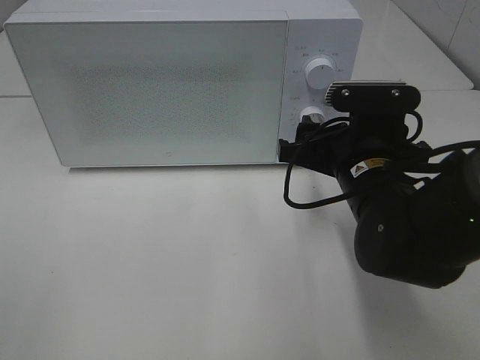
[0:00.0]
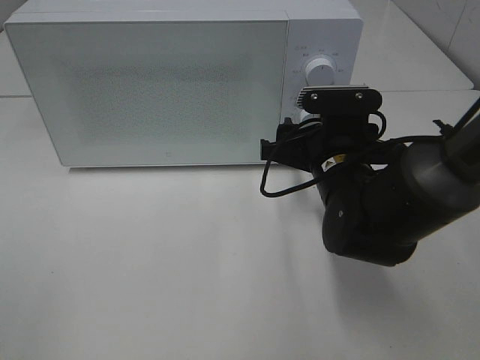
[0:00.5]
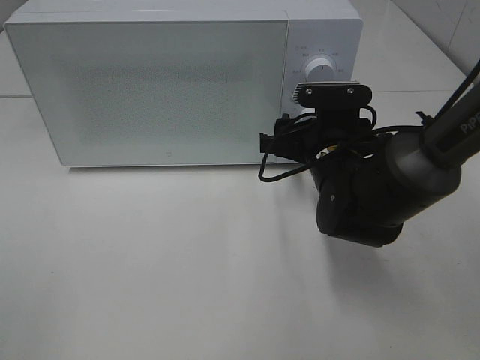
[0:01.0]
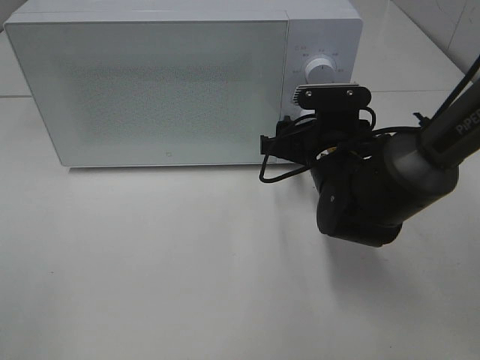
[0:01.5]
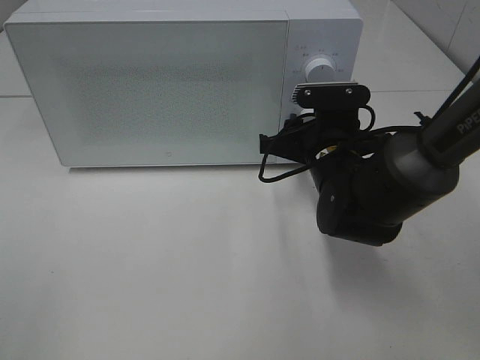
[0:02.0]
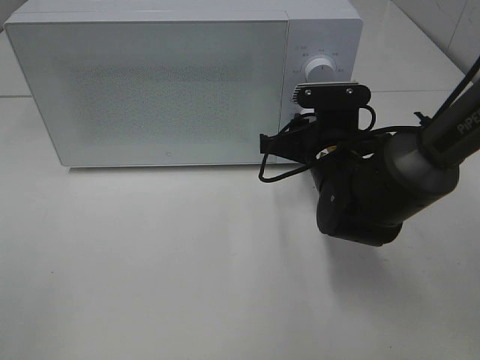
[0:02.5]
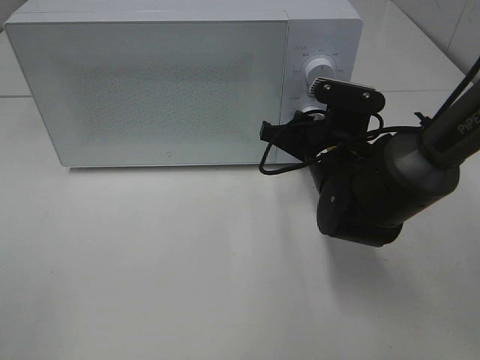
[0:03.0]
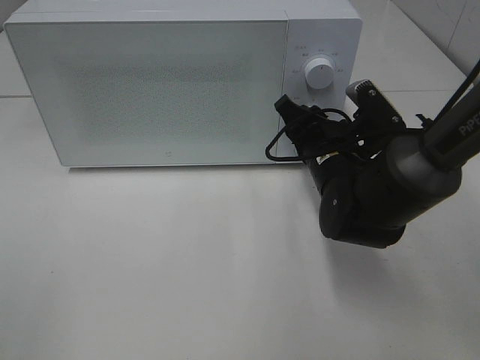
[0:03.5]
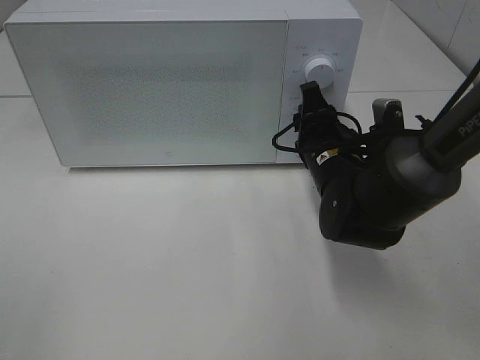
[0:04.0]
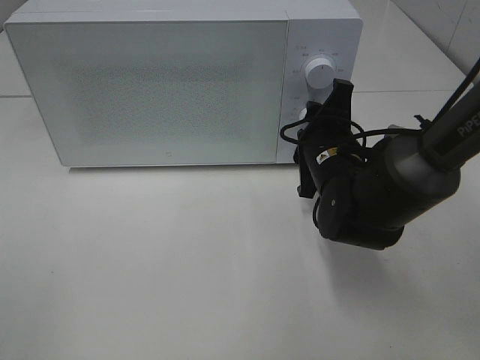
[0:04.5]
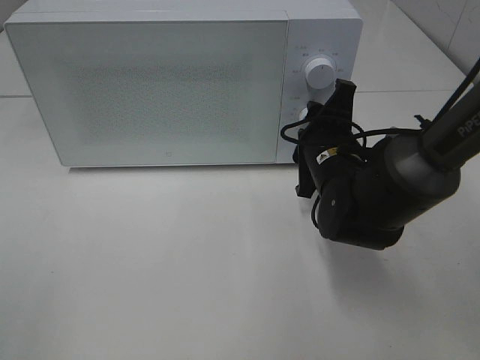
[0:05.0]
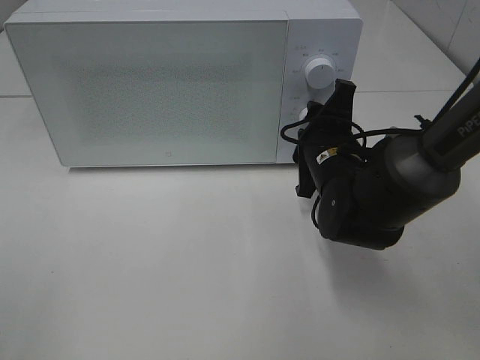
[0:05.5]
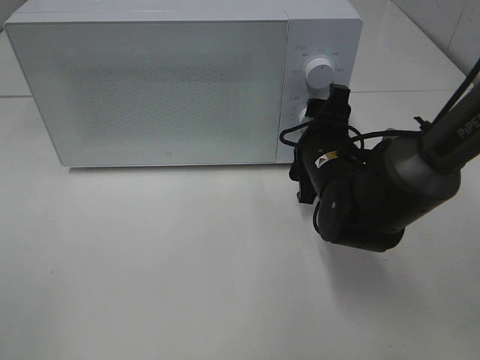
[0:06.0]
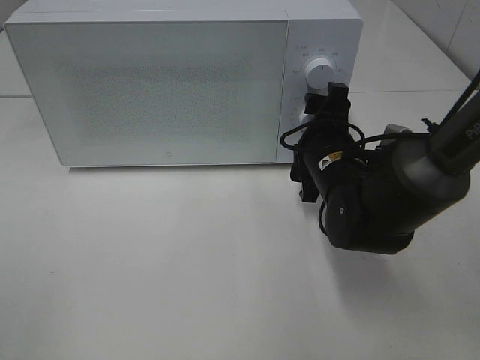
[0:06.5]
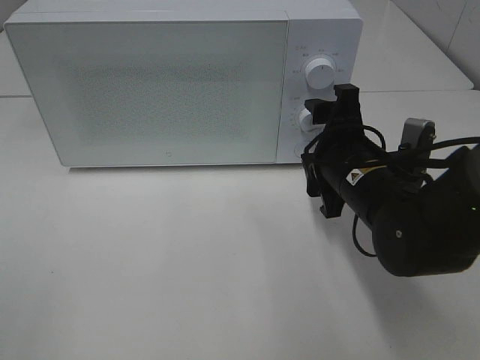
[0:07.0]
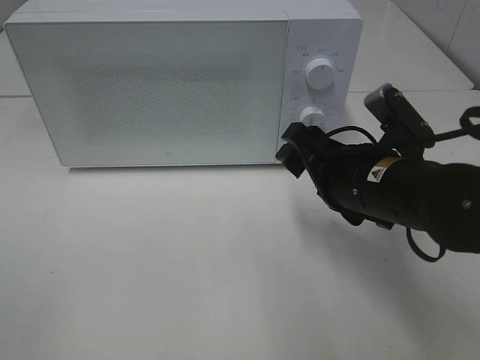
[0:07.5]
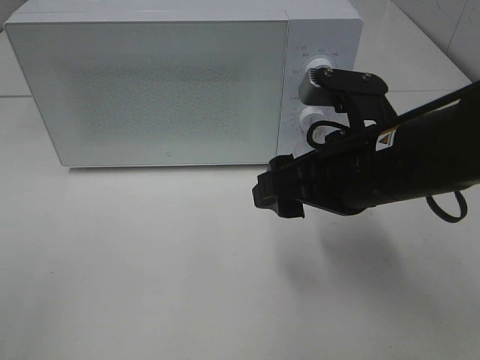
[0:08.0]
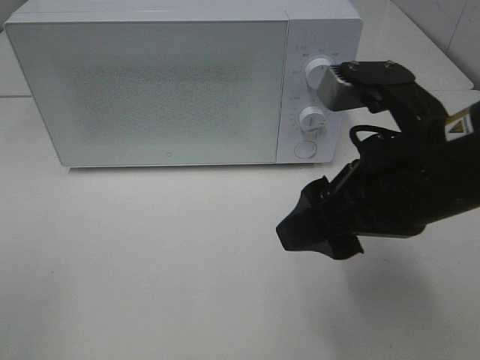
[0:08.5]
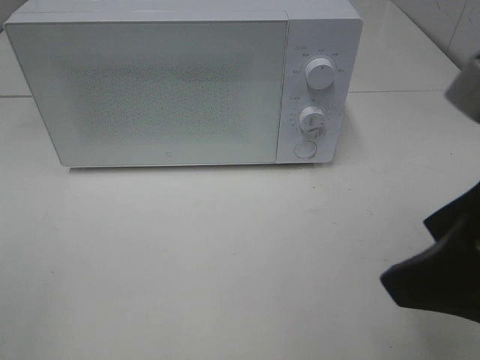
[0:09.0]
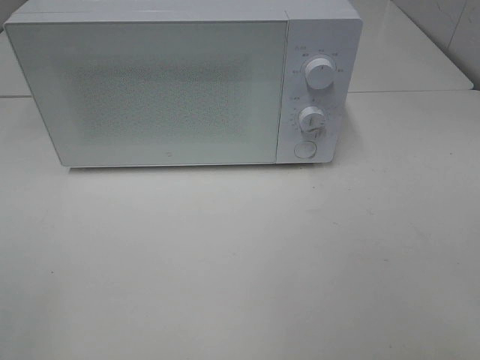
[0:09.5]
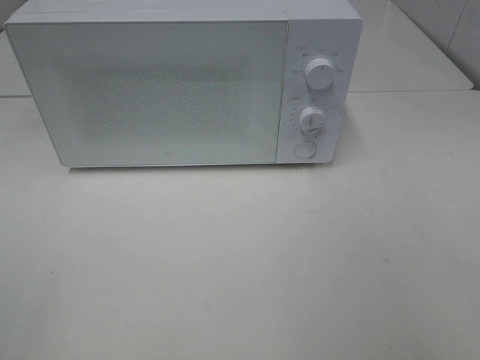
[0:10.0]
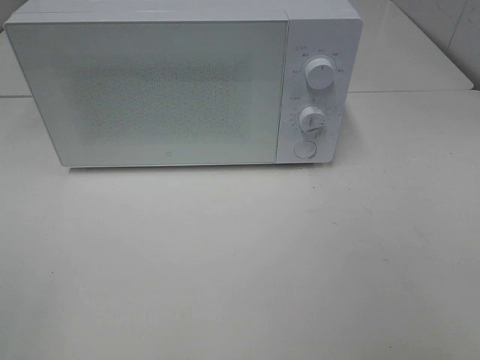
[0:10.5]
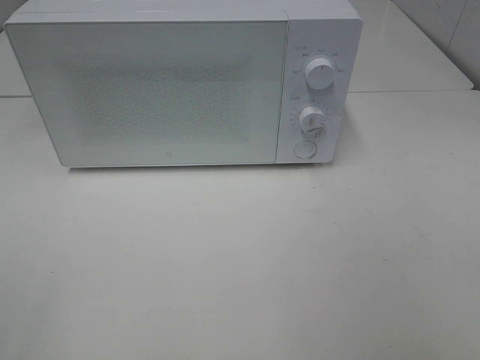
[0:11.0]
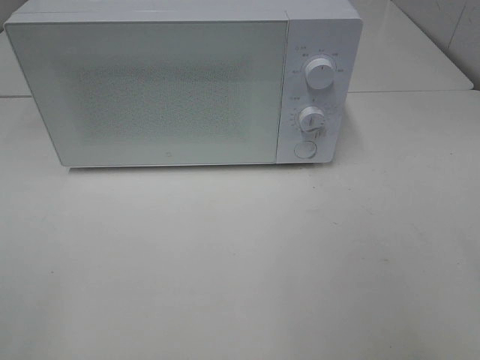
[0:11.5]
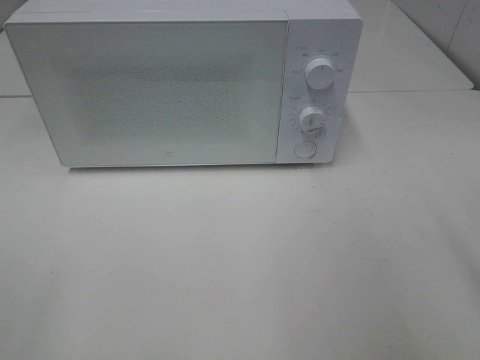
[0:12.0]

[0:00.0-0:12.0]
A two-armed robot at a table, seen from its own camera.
Task of the whole recording: Heat Sandwich.
Step, 0:00.0 to 0:06.0: Right hand: twist timer button.
0:00.0 to 0:02.0: The right gripper shifts about 5 cm forward.
0:04.0 to 0:06.0: The right gripper opens.
0:06.0 to 0:08.0: The right gripper is displaced backward and upward by about 15 cm.
0:08.0 to 0:10.0: The right gripper heads backward and to the right, covering roughly 25 cm.

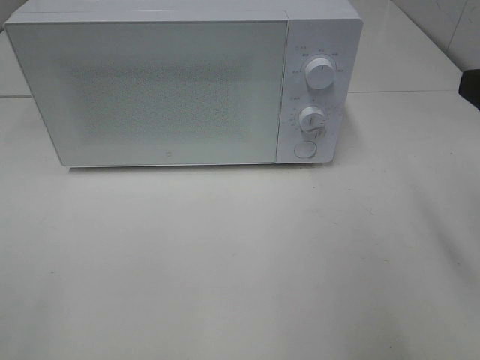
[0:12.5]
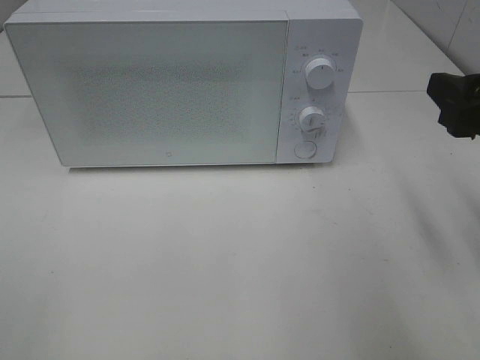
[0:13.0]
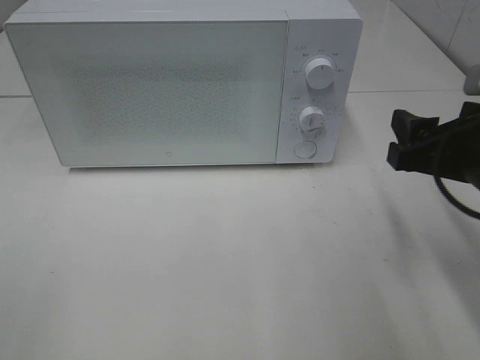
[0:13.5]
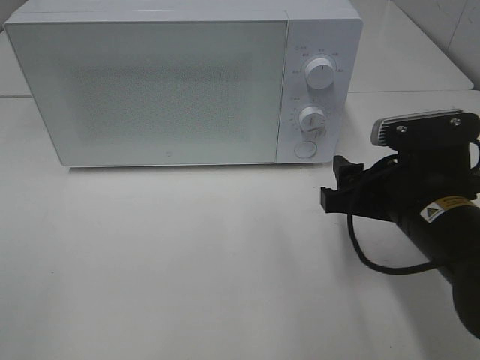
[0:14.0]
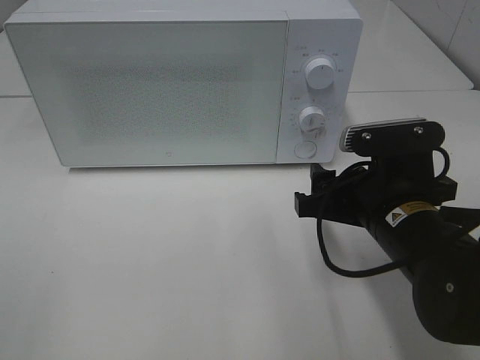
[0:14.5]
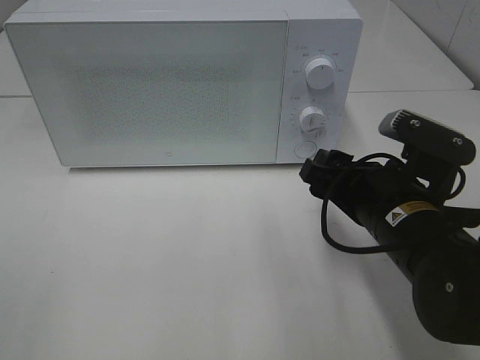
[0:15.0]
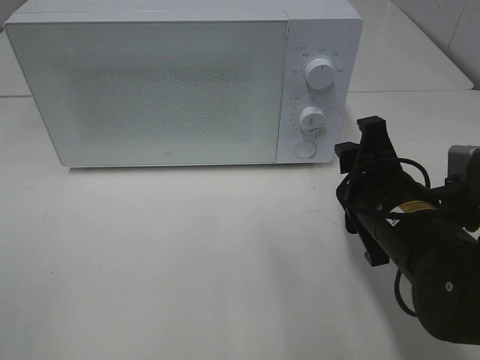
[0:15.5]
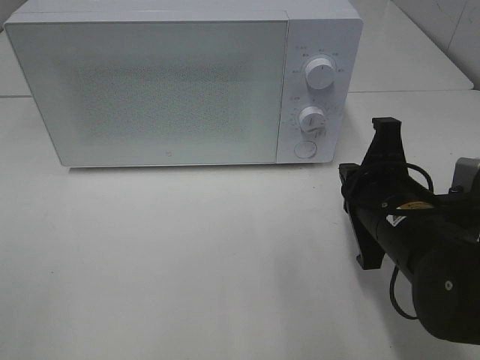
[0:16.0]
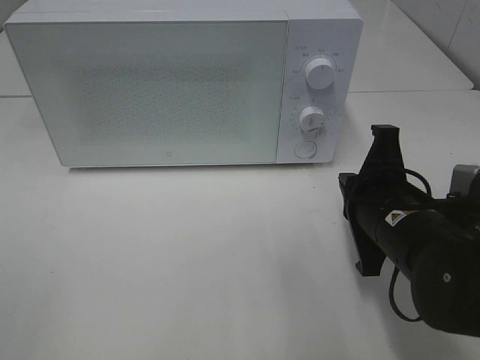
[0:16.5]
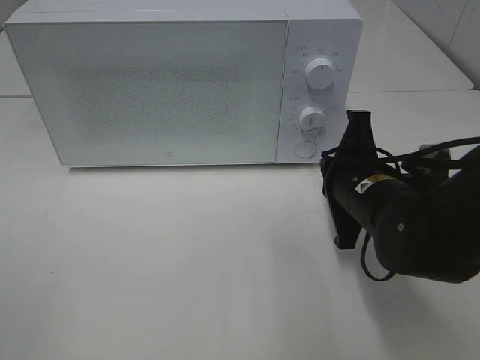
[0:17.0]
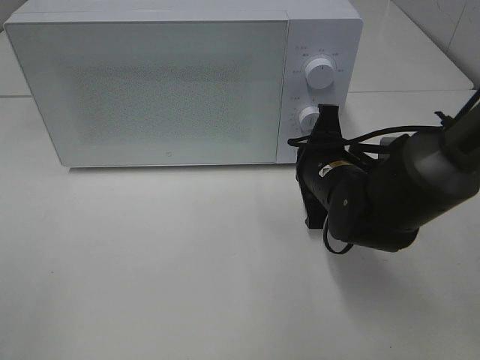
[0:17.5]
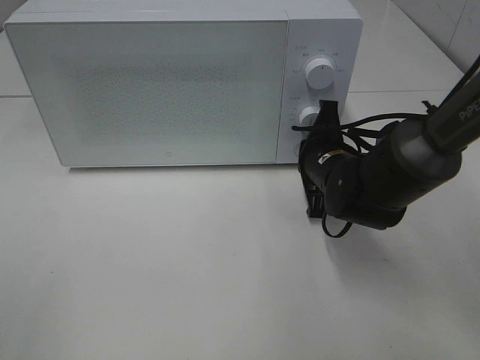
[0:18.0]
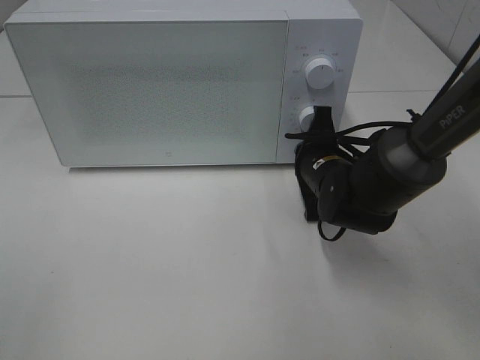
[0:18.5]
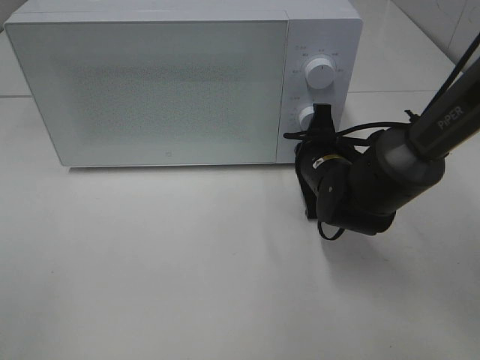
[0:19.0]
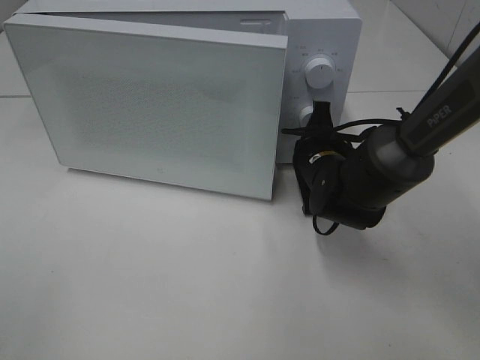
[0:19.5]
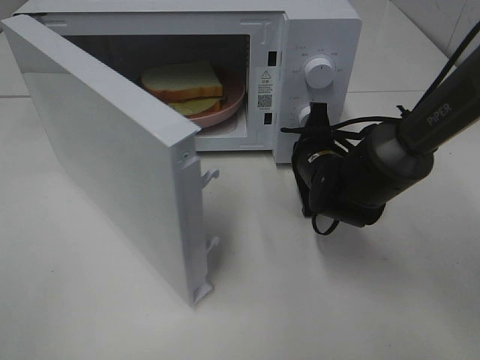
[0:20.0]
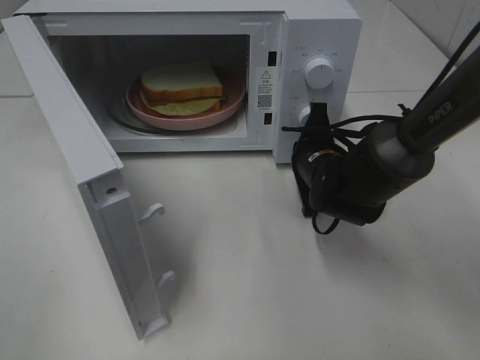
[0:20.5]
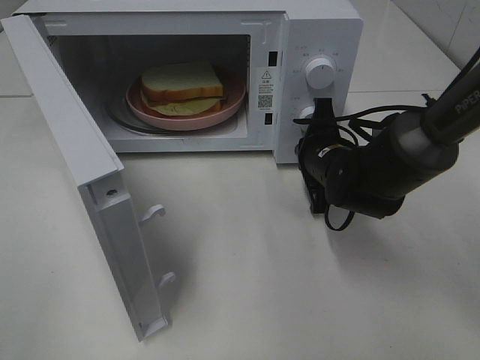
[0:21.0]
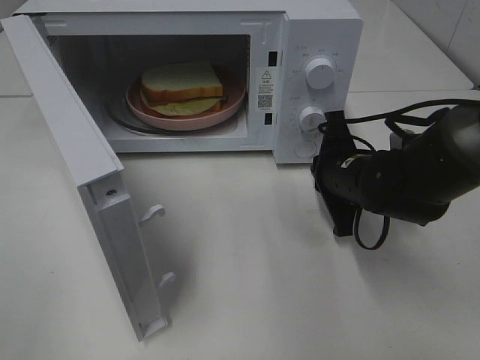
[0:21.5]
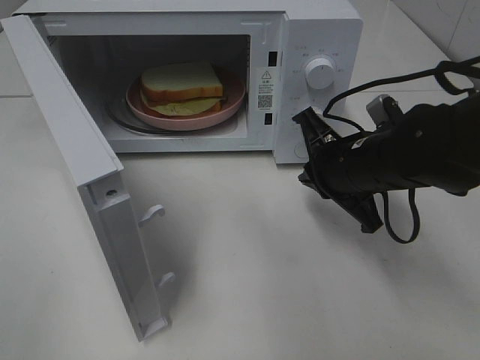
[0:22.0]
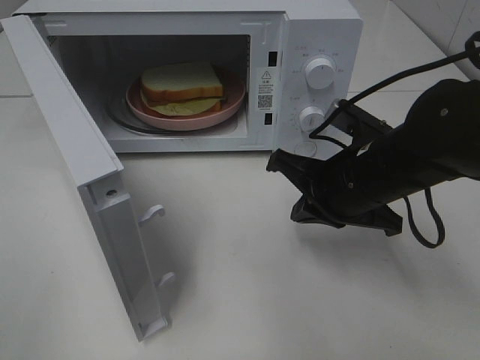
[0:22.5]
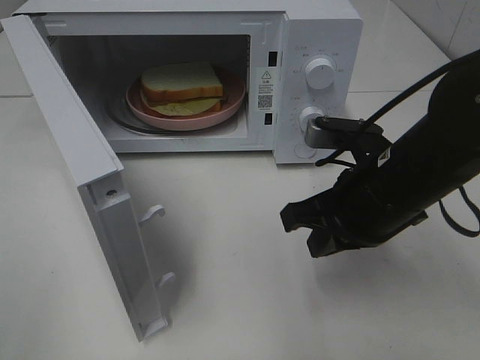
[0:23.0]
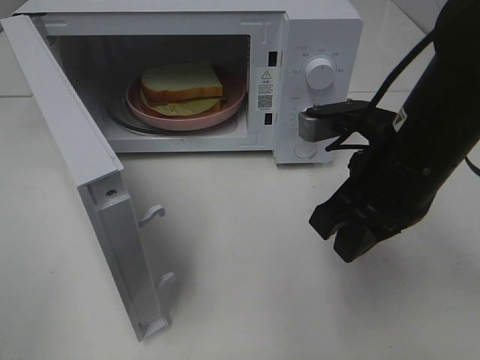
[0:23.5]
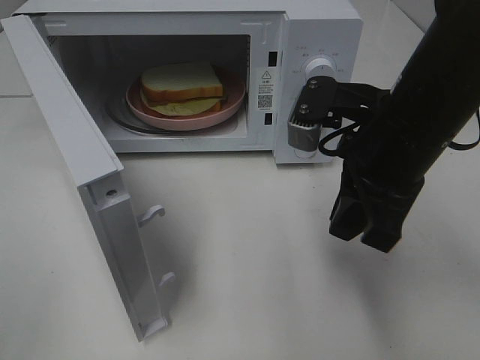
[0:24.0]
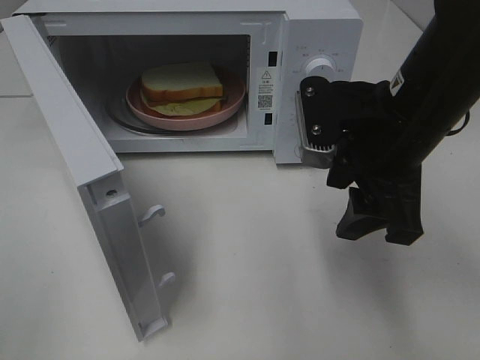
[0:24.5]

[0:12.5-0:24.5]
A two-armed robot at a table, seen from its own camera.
Task of the whole recording: Heat Sandwich.
Step, 0:12.5 to 0:21.0: Right hand: press the switch.
0:12.5 to 0:14.5: The right gripper travels downward and to the left by roughly 20 cm.
0:14.5 to 0:16.5: The right gripper closes its fingers.
0:16.5 to 0:18.5: The right gripper heads forward and downward, covering about 15 cm.
0:20.5 to 0:22.5: The right gripper moves backward and upward, some 10 cm.
0:22.5 to 0:24.5: The right gripper is displaced upward by roughly 10 cm, and opens up.

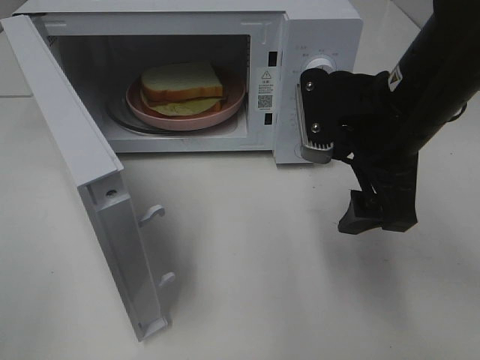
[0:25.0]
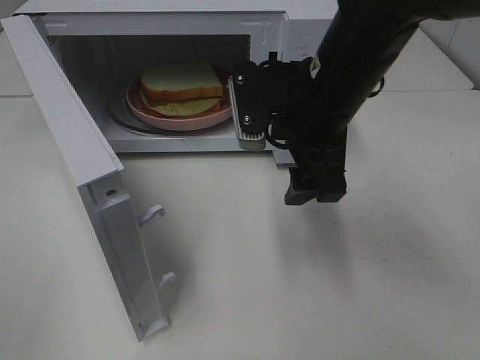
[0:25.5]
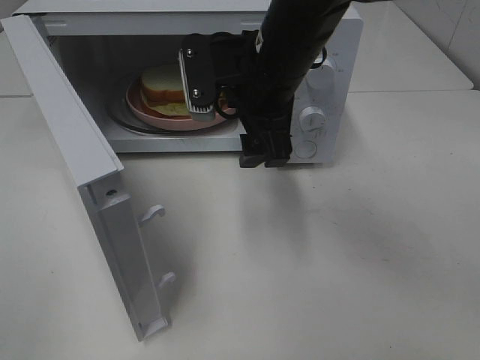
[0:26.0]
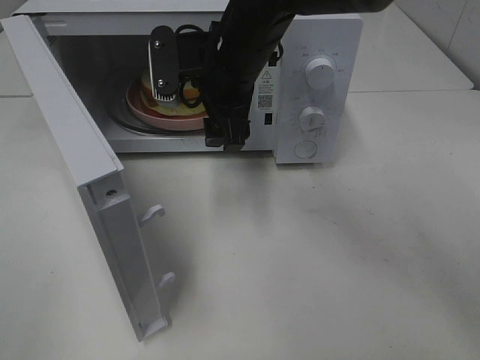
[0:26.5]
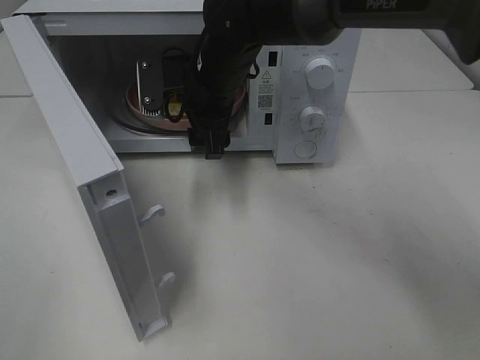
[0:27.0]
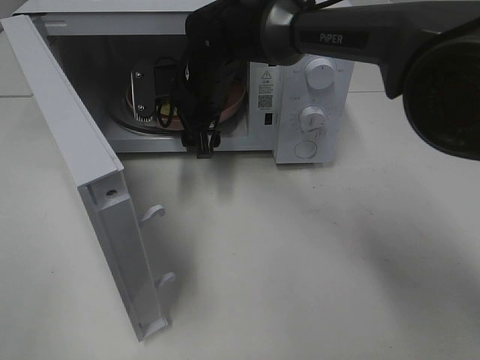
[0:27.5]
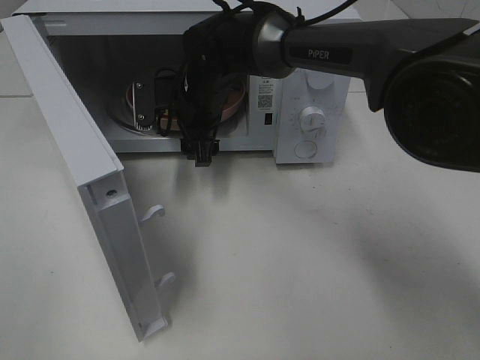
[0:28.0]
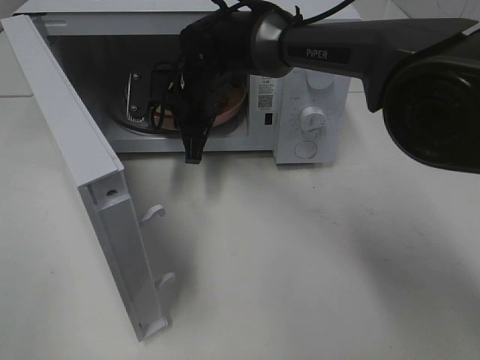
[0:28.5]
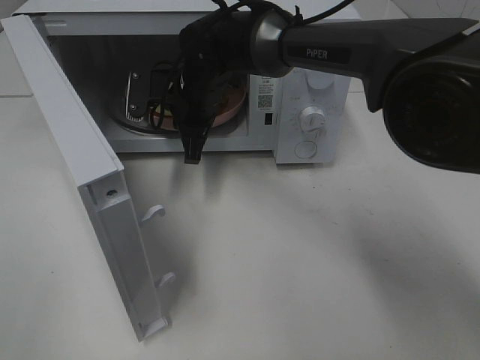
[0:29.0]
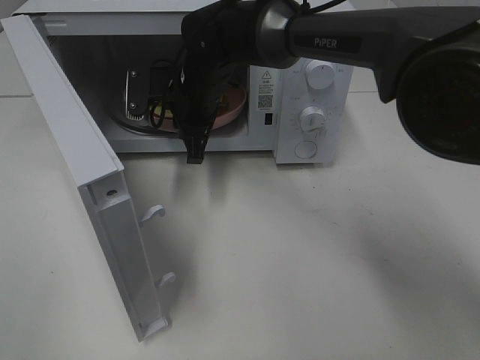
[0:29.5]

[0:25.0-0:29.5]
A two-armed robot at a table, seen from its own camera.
Task of the whole recording: Heat Sandwich.
Step, 0:25.0 to 0:28.5: Right hand: grab the plate with the sandwich.
0:25.0 to 0:27.0: The right gripper goes some 20 cm to the left and forward.
0:27.0 to 0:29.5: The right gripper closes up.
